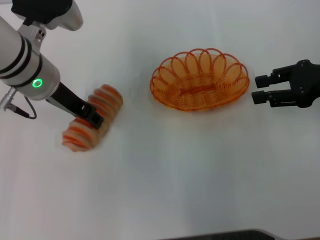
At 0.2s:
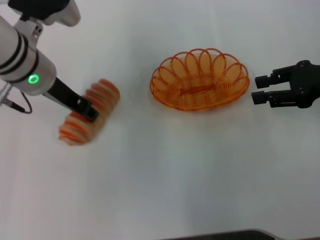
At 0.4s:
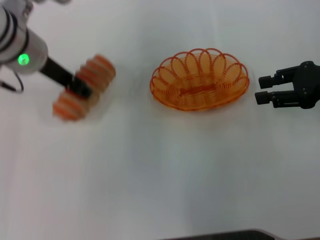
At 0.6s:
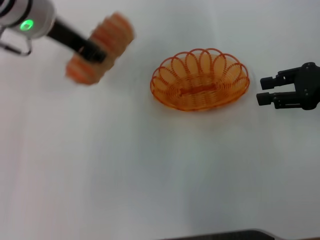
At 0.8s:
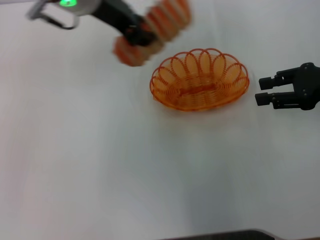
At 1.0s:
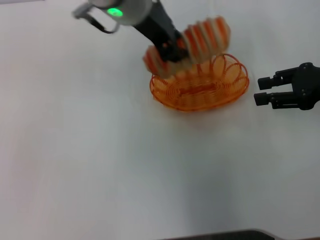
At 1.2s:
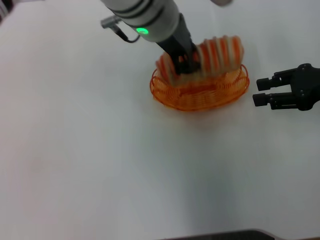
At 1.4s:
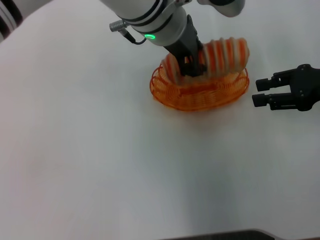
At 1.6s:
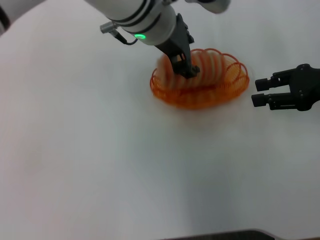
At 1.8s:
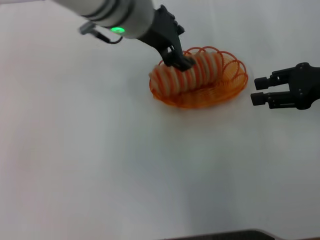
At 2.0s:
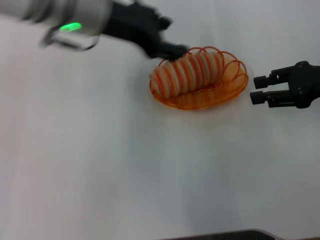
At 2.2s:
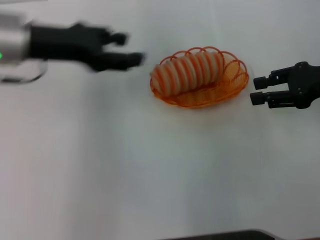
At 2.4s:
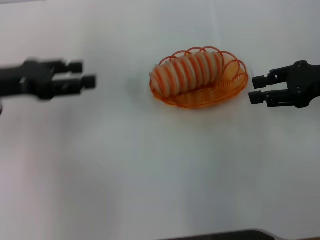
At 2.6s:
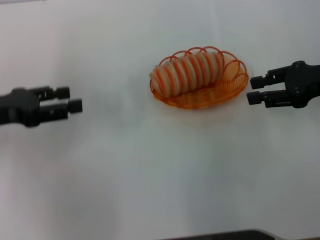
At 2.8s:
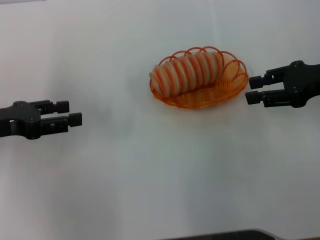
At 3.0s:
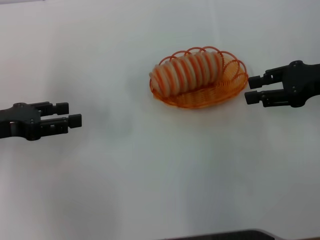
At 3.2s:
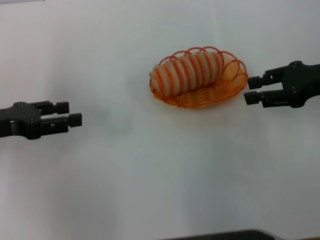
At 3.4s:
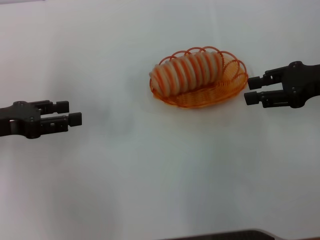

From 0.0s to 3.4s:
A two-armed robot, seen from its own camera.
Step, from 0.4s to 2.0s: Place the long bread into the basket with the left gripper.
From 0.0s to 1.6s: The left gripper moves to the right, about 15 cm, and closes up.
From 1.6s to 3.4s: The left gripper goes some 30 cm to the left, and opens up.
